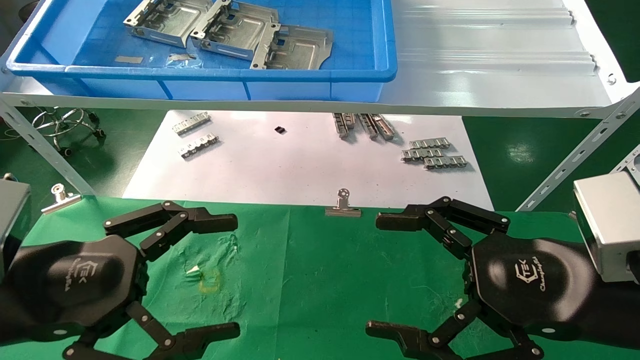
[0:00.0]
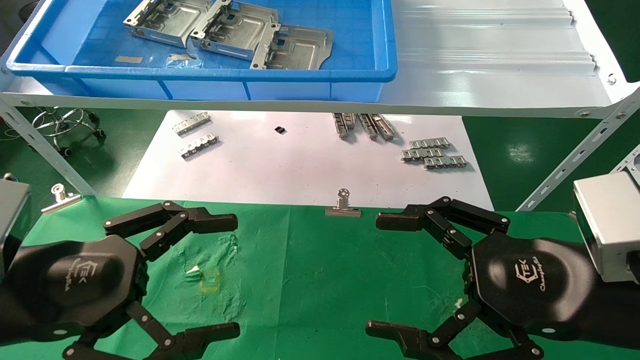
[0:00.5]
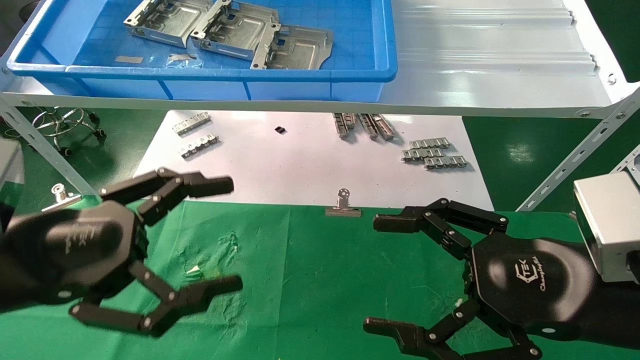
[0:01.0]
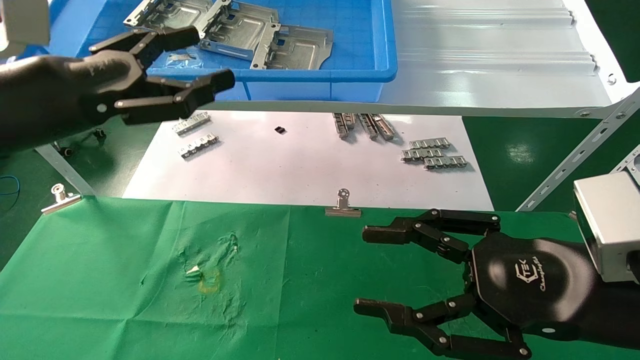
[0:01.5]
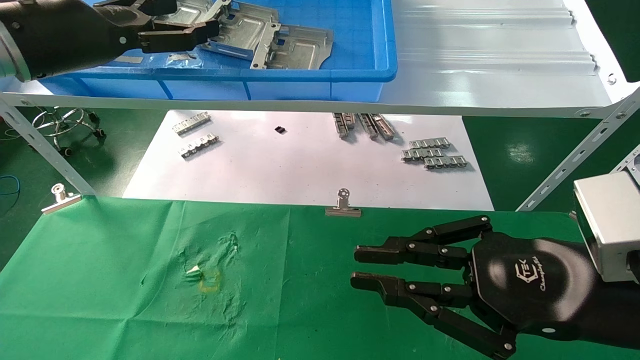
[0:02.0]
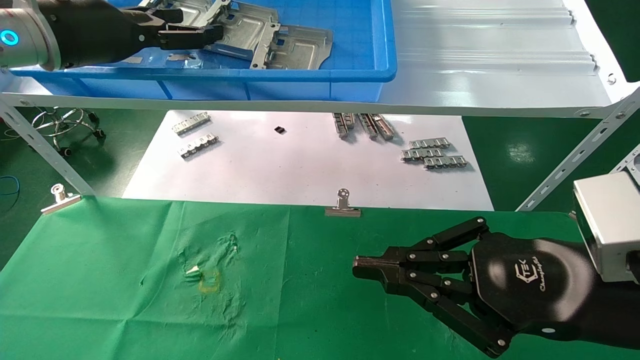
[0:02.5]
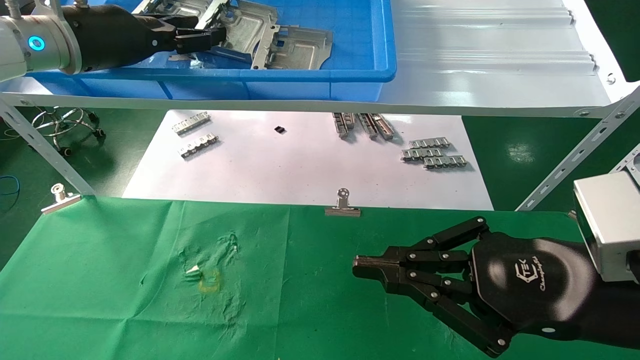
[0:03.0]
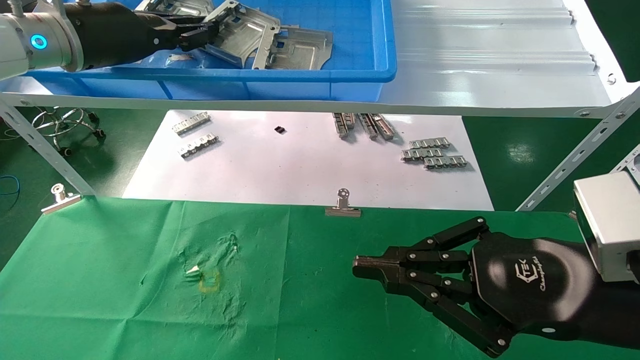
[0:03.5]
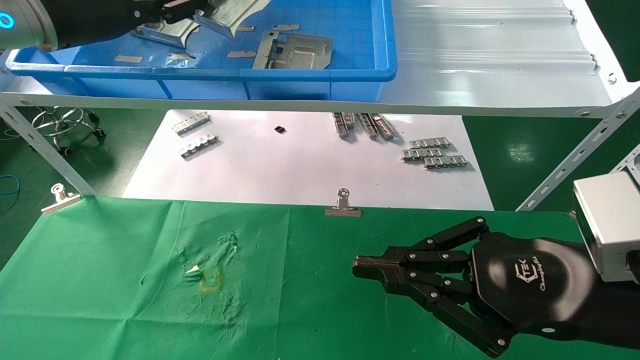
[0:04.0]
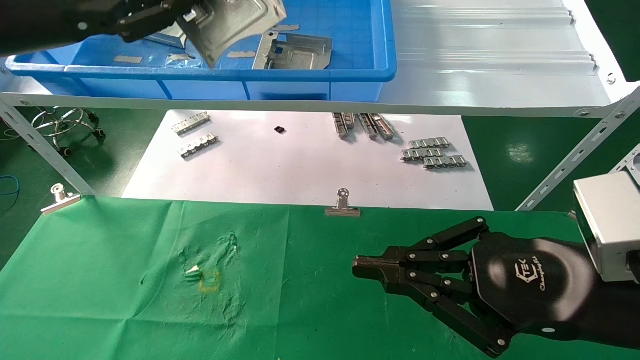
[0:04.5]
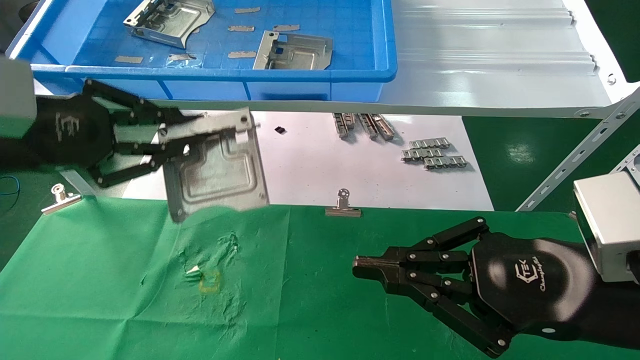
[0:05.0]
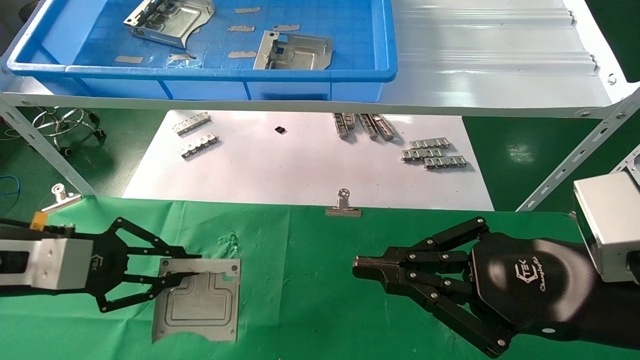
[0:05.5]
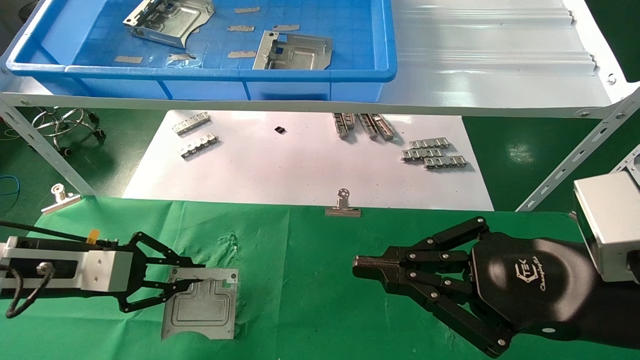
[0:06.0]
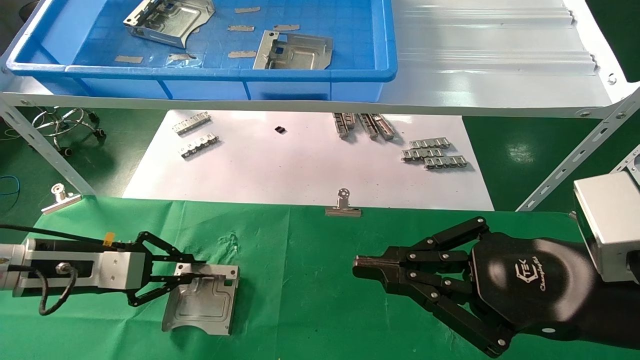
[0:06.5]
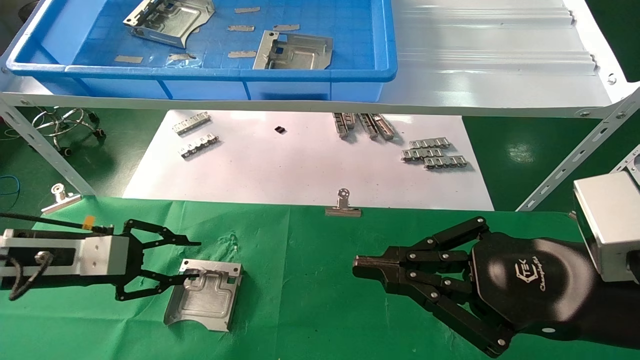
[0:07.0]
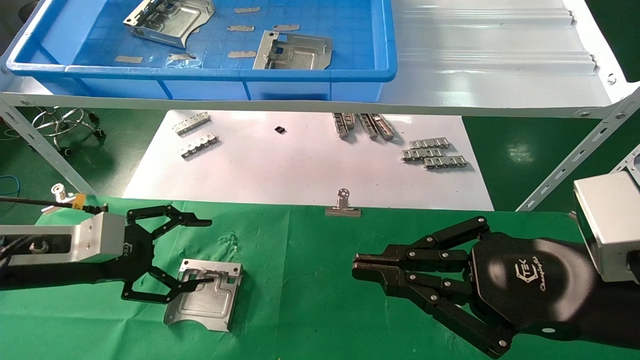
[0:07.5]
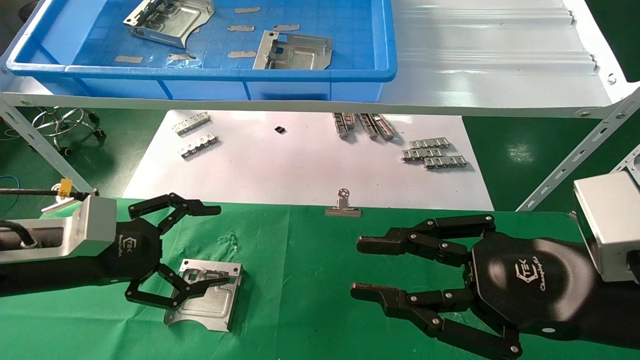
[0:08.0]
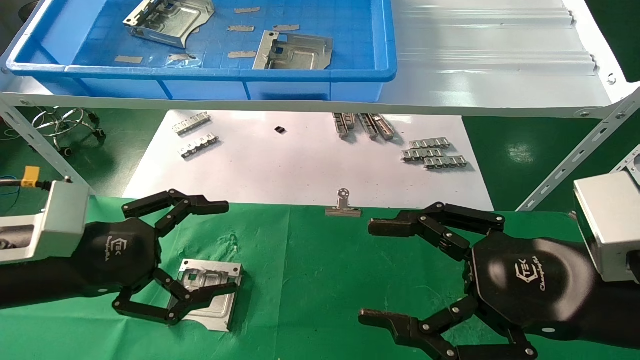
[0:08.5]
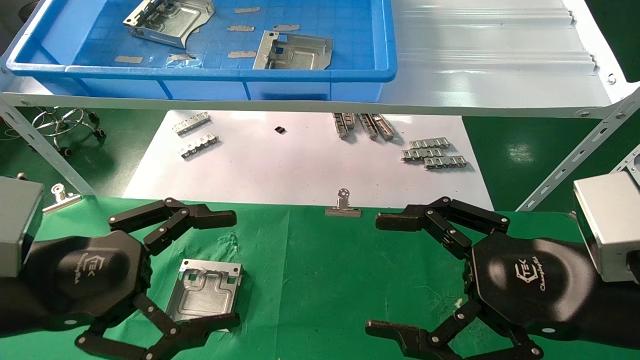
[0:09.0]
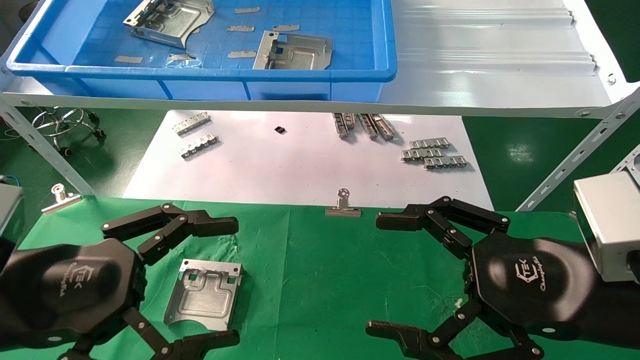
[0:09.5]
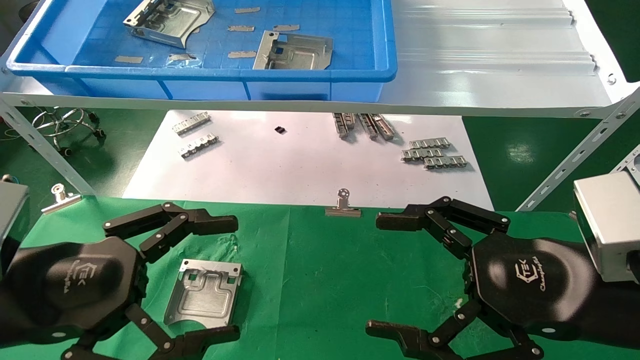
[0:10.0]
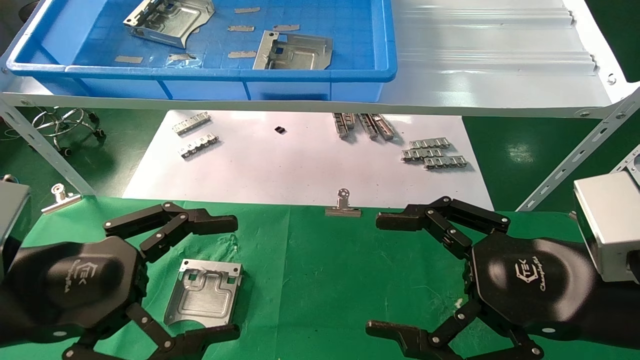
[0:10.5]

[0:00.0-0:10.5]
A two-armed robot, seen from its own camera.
Task of the whole recording: use the mechanical arm to pick up the parts and place them on the table.
Step, 0:01.5 to 0:03.5: Pick up the hard drive bracket from the feeding area.
Step, 0:04.0 to 0:06.5: Place the hard drive bracket into the box.
0:00.0 to 0:02.0: The left gripper travels upward and forward by some 25 cm; the right gripper closes its fingers.
0:02.0 to 0:04.0: The left gripper closes.
0:04.0 to 0:06.5: The left gripper travels downward by about 30 cm.
0:06.5 to 0:08.5: The right gripper opens. The left gripper heads backward, to the right and upward, covering about 15 cm, and opens its fingers.
0:08.5 to 0:10.5: The left gripper is displaced backward by approximately 5 cm.
